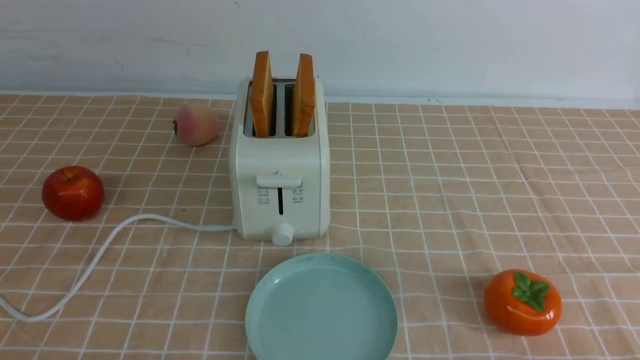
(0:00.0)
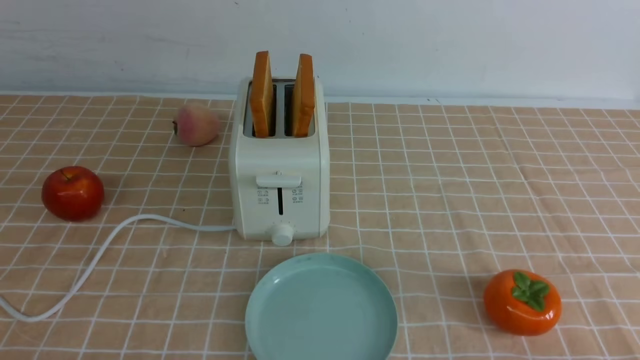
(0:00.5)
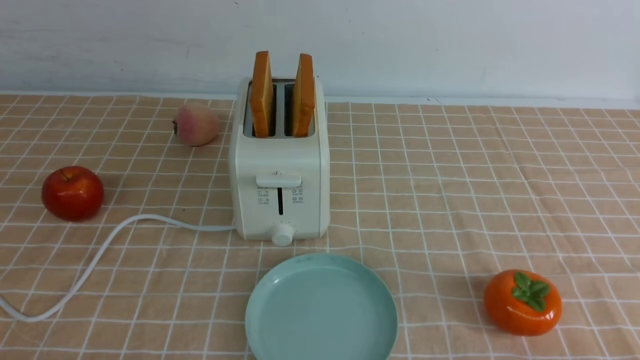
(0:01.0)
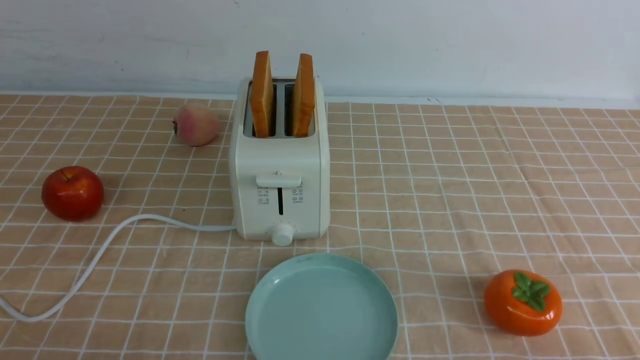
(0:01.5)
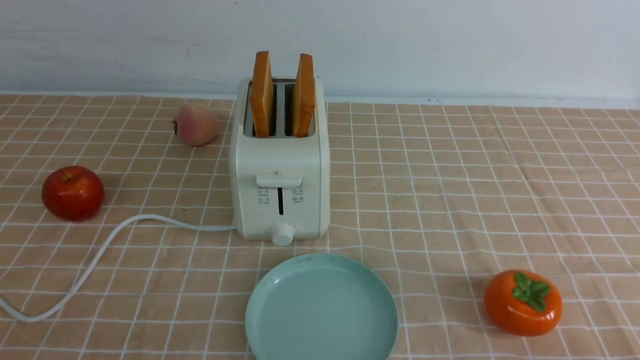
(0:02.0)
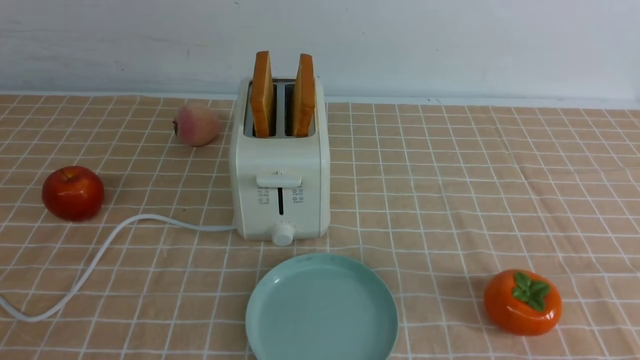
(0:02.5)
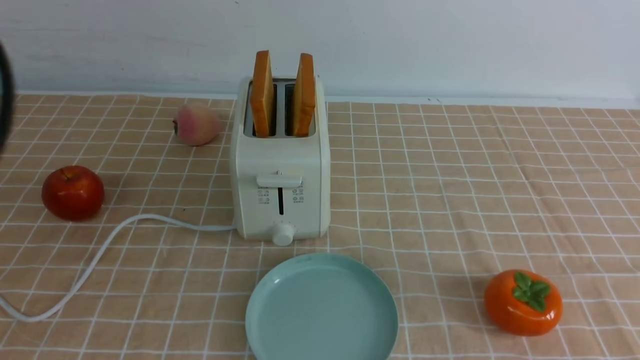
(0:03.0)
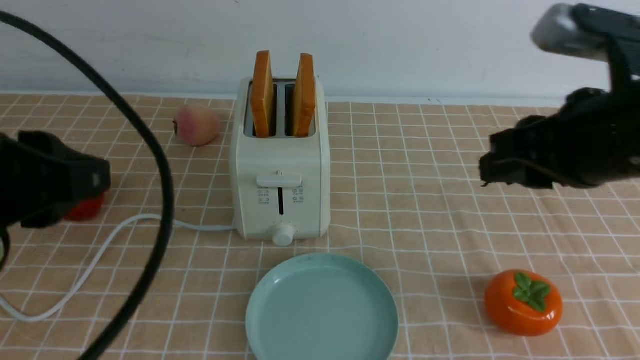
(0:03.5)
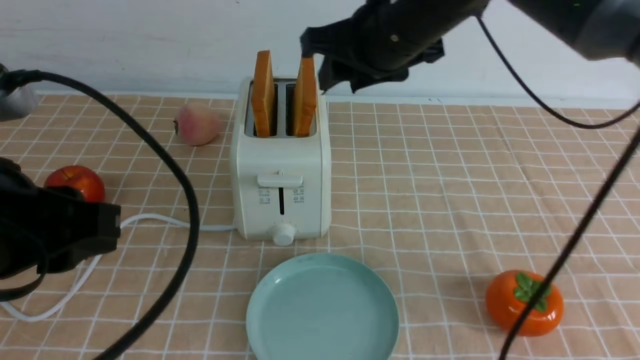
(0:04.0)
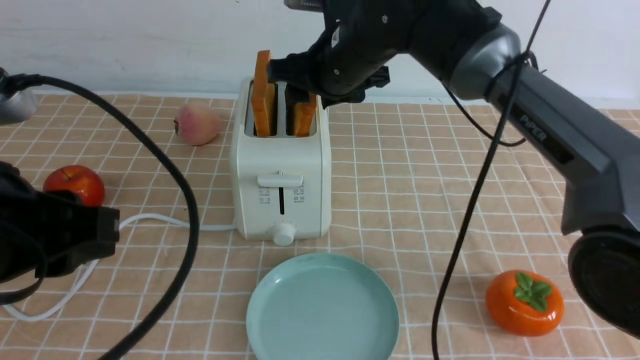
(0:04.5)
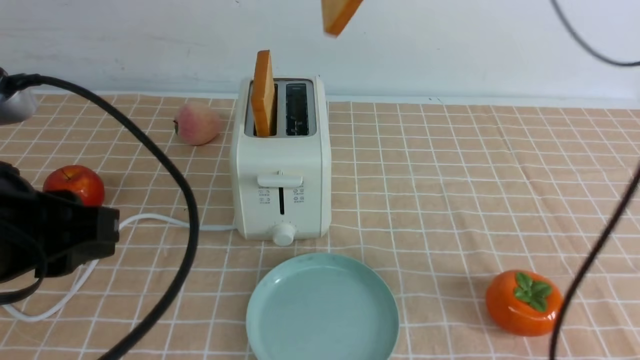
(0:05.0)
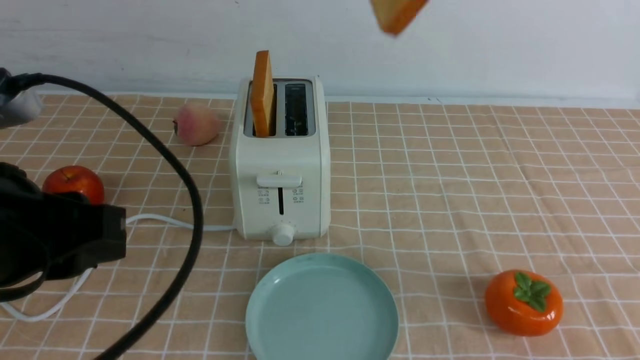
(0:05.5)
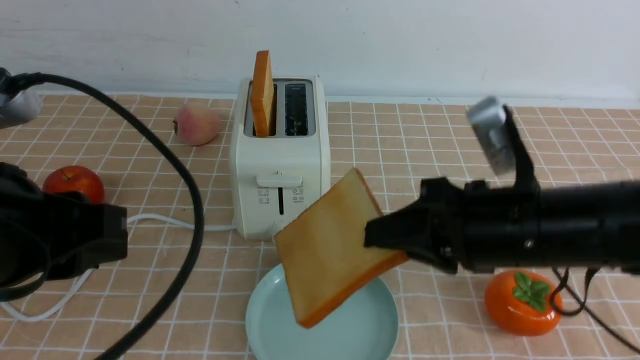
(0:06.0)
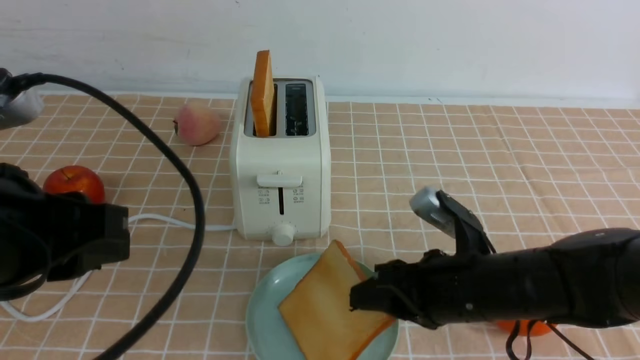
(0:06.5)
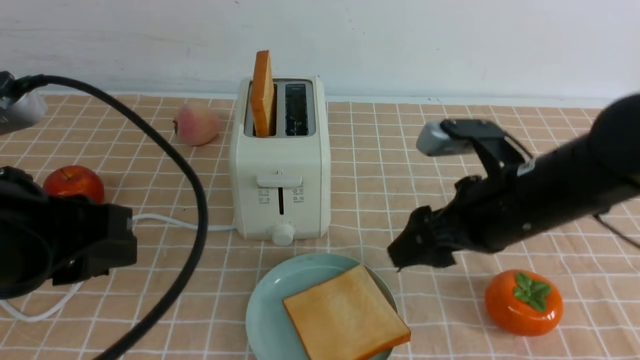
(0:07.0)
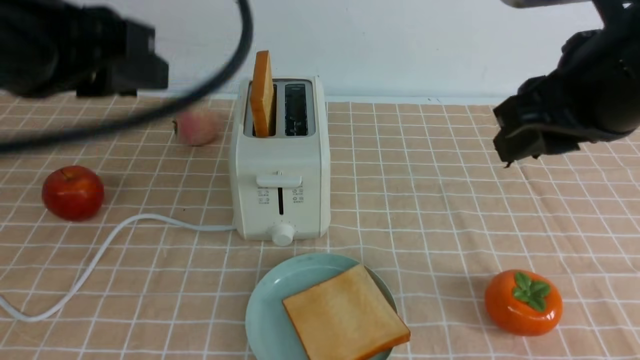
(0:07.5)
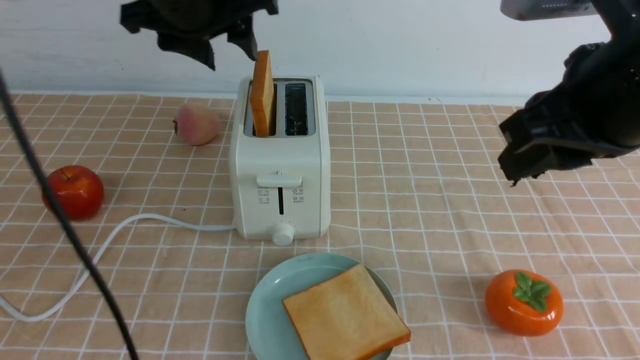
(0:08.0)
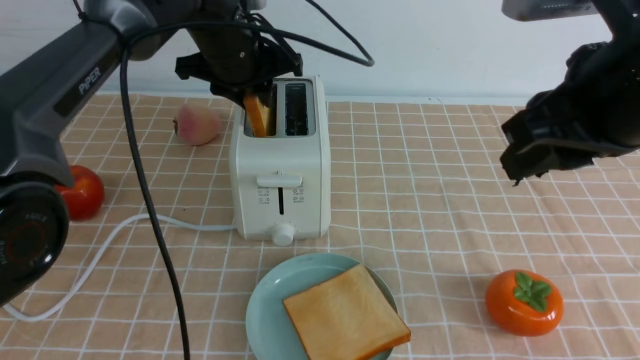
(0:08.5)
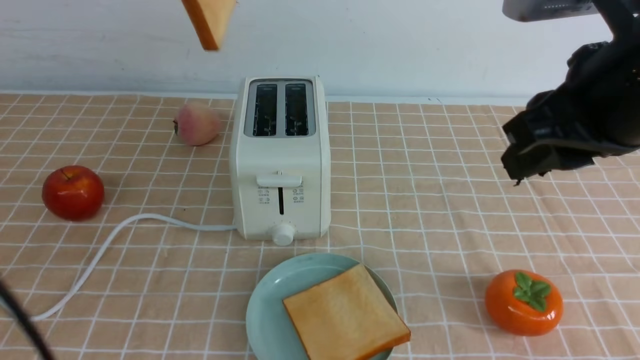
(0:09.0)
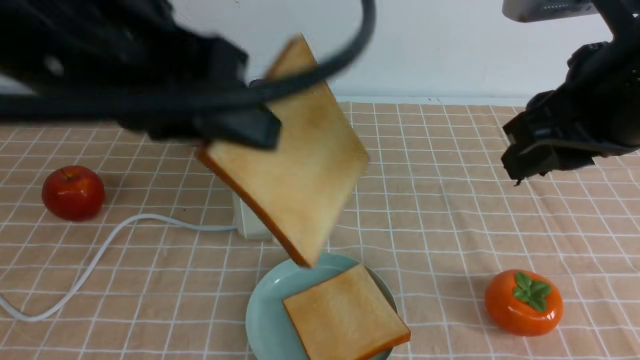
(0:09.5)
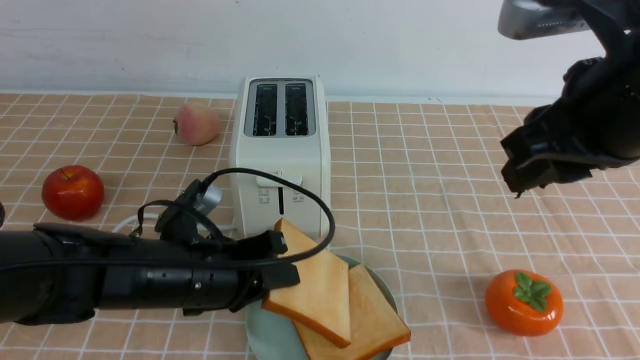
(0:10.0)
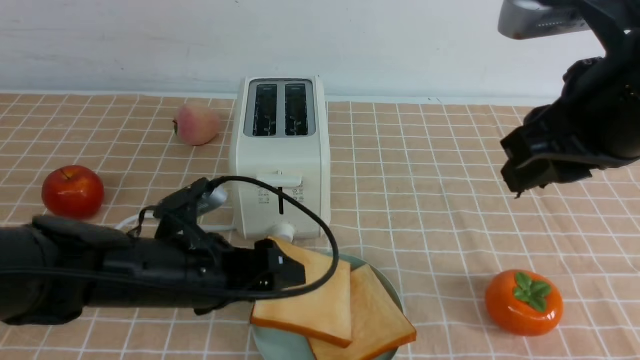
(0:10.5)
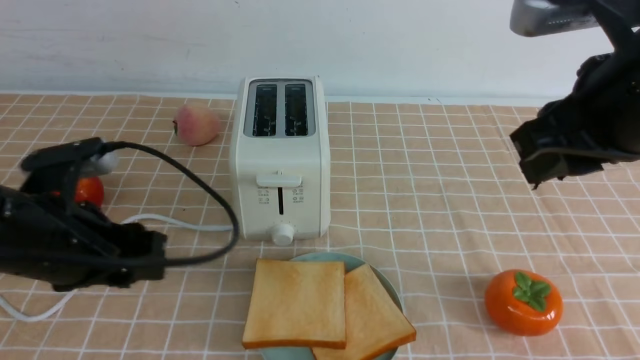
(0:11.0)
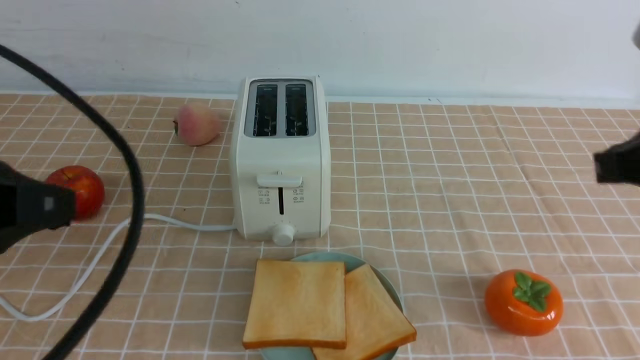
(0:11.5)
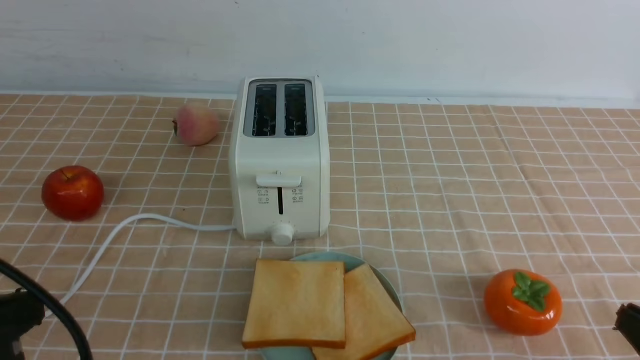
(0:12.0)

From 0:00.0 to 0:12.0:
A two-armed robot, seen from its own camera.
Task of the whole recording: take toasted bread from bread machine on light coffee tablecloth place on plate.
Step, from 0:00.0 to 0:04.5: use the right arm to take out a slice of bread.
Step, from 0:05.0 to 0:06.5: use the right arm to put a slice of bread into the plate.
Step, from 0:07.0 to 0:08.5: use the left arm to take out a slice of bread.
Step, from 0:09.0 to 0:10.5: use the left arm to put a slice of bread into the empty plate.
From 0:02.0 to 0:04.0: The left gripper is displaced upward, forward and to the right by about 20 cm. The right gripper goes about 40 cm forward, to the left and upward.
From 0:04.0 to 0:06.0: The right gripper goes up and down, approximately 20 cm each way, reversing 2 times, and closes up.
From 0:06.0 to 0:08.0: The right gripper heads upward, covering about 10 cm, and opens and closes again, while the left gripper moves forward, roughly 20 cm.
From 0:08.0 to 0:10.0: The left gripper moves up and down over roughly 25 cm, changing direction 2 times, and closes up.
From 0:10.0 to 0:12.0: The right gripper moves downward, backward and to the right, some 25 cm, and closes; the left gripper goes approximately 25 cm backward, to the left and upward, and opens and closes again.

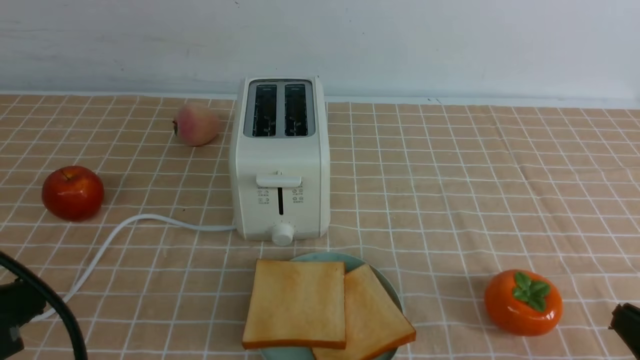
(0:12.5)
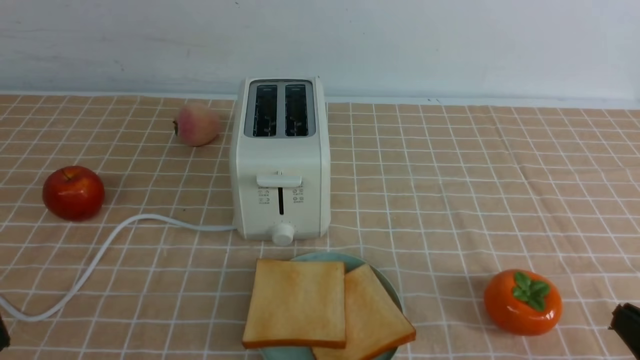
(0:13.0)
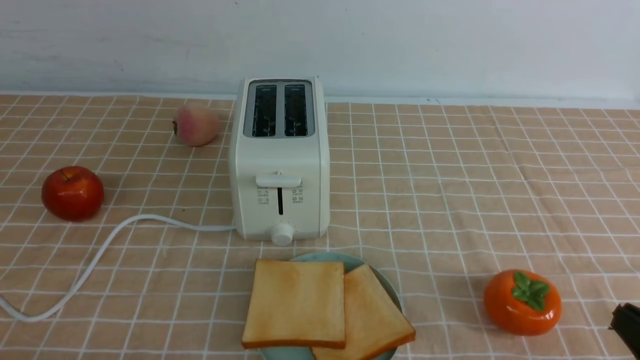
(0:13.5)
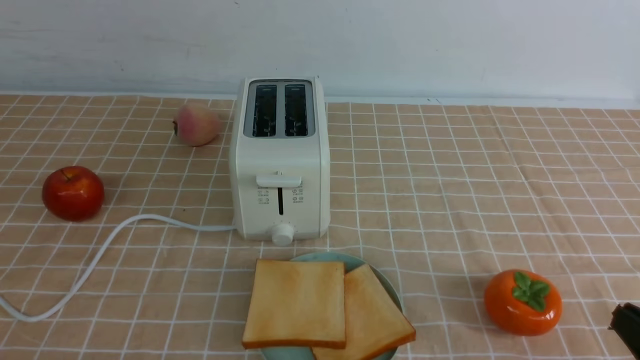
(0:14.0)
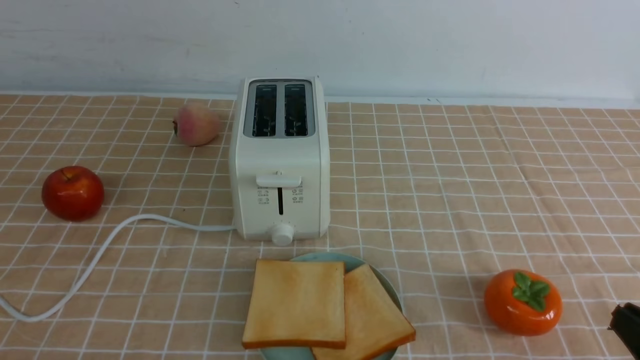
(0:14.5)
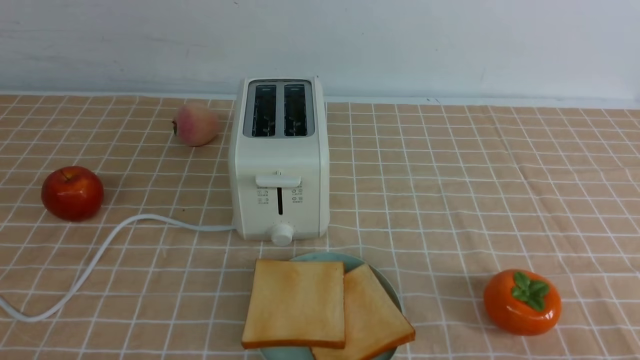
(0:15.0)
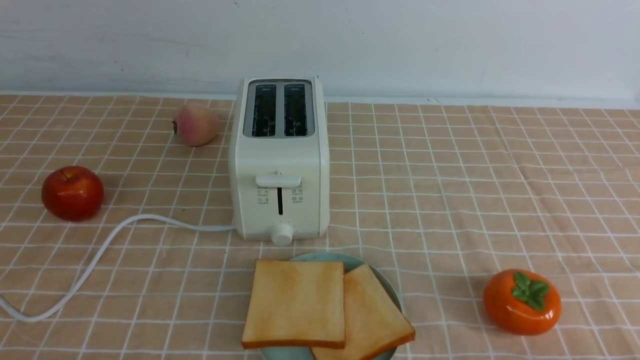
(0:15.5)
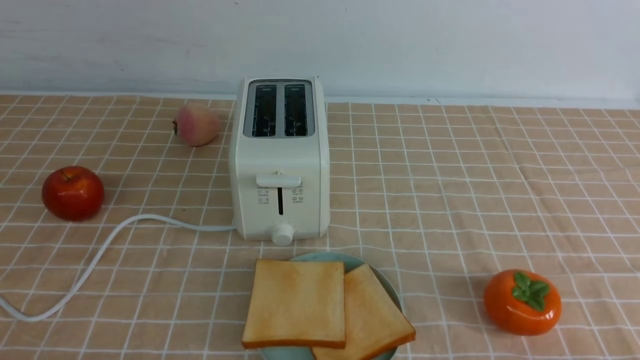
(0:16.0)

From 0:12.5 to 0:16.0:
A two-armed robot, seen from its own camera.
Task of the whole recording: take toasted bread from bread machine on light coffee tablecloth place on plate.
From 0:12.5 to 0:14.5: The left gripper travels downward by some 15 cm.
